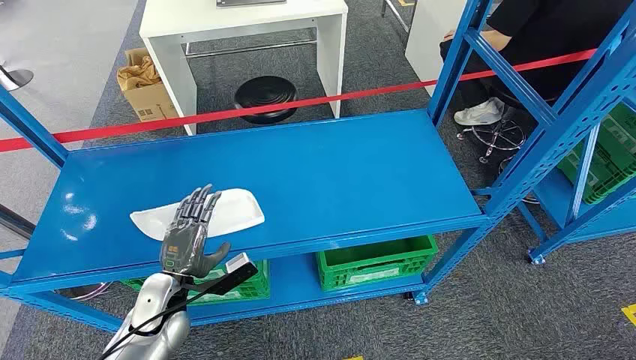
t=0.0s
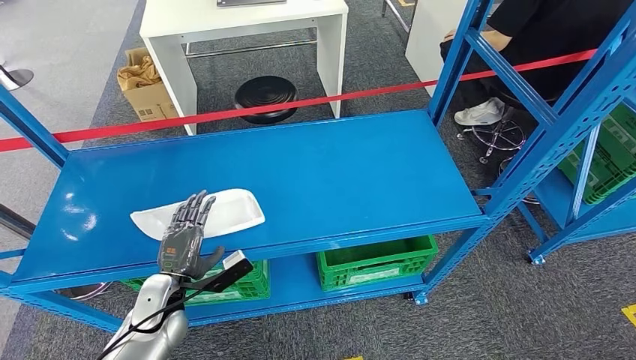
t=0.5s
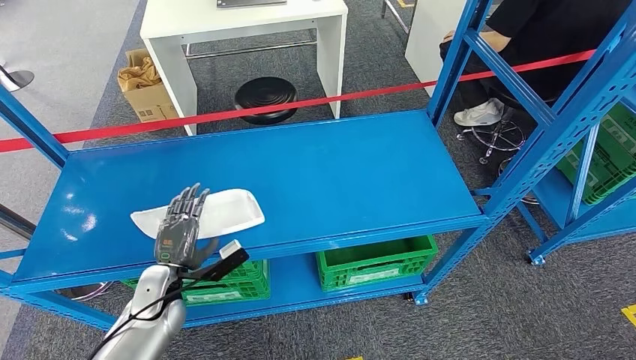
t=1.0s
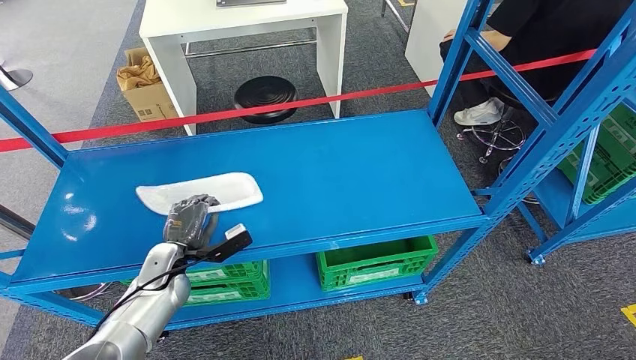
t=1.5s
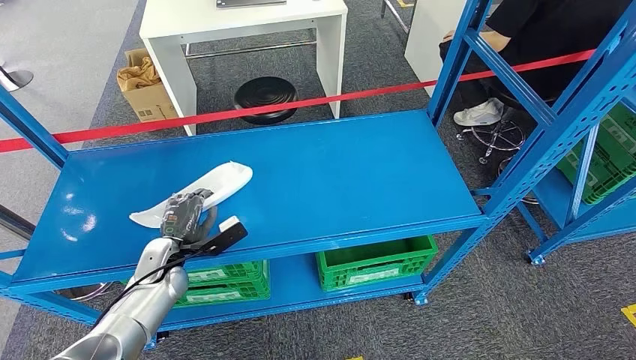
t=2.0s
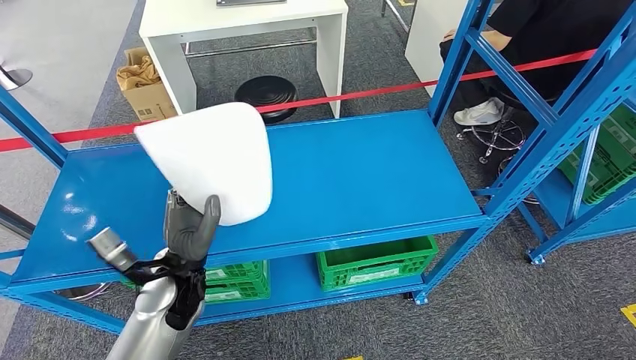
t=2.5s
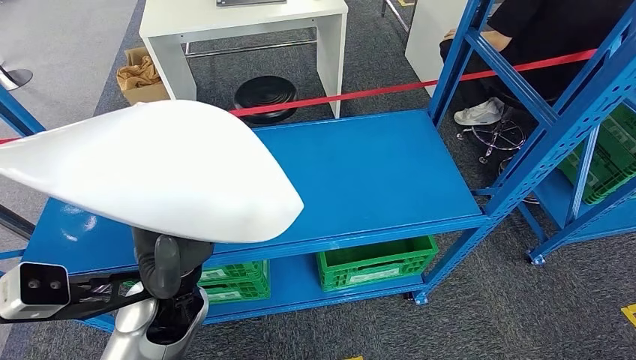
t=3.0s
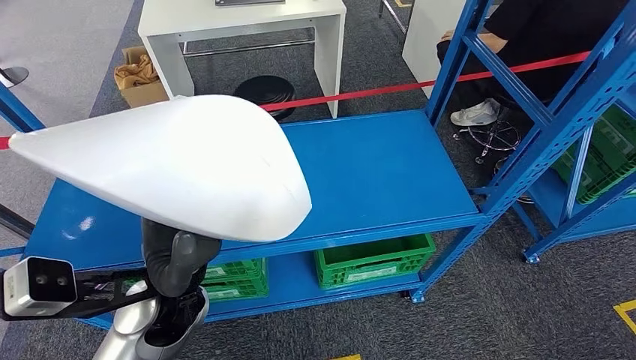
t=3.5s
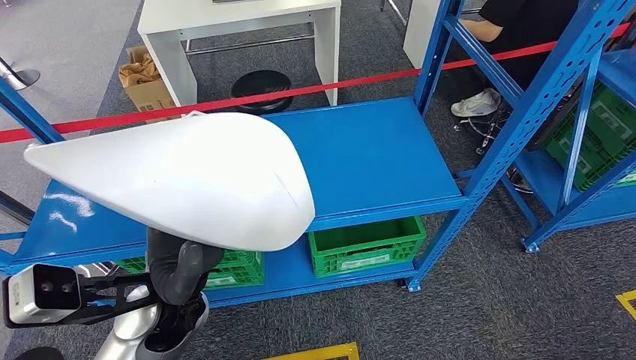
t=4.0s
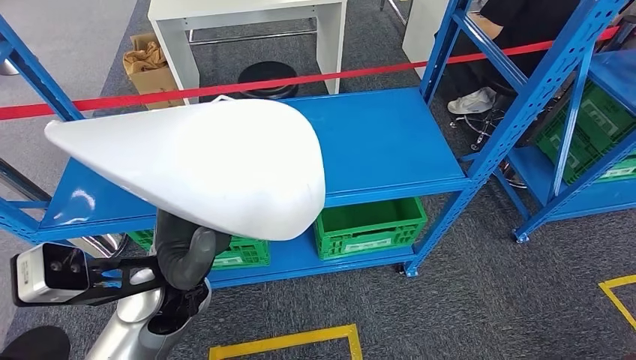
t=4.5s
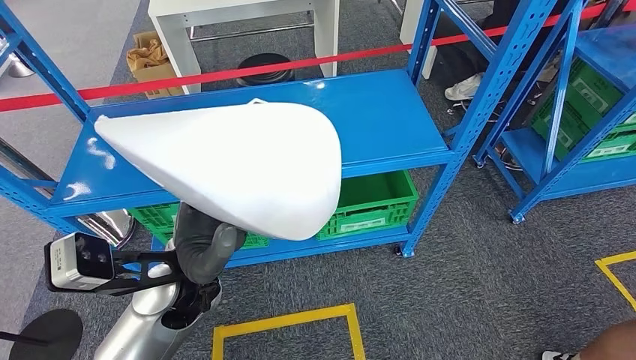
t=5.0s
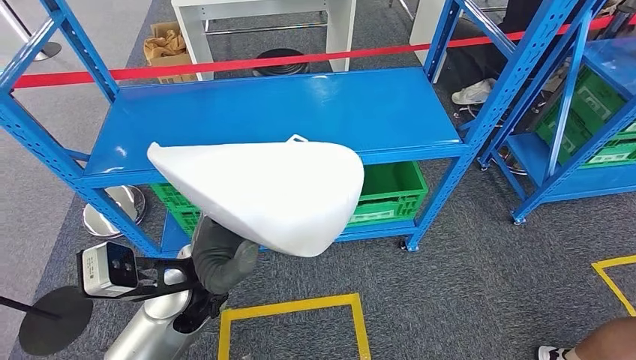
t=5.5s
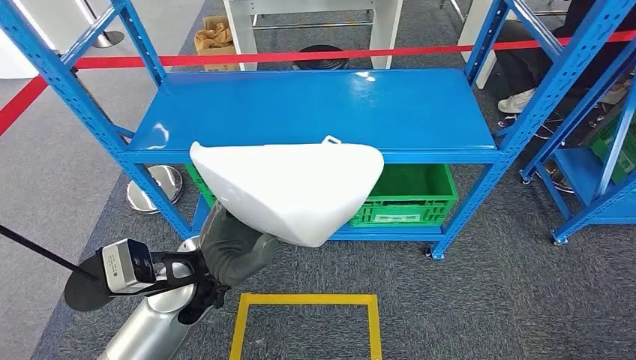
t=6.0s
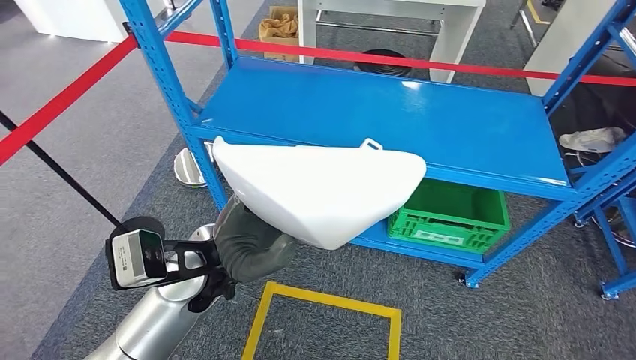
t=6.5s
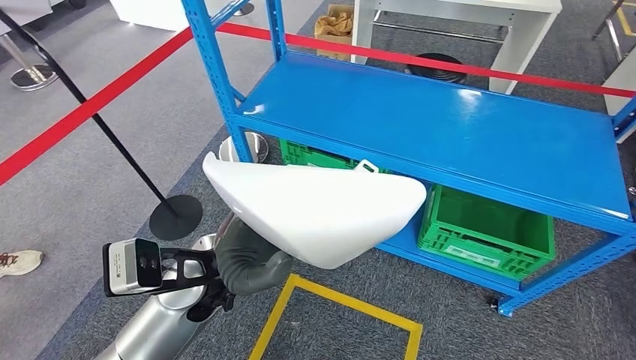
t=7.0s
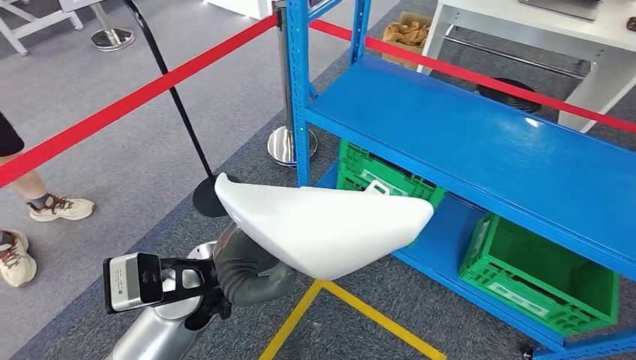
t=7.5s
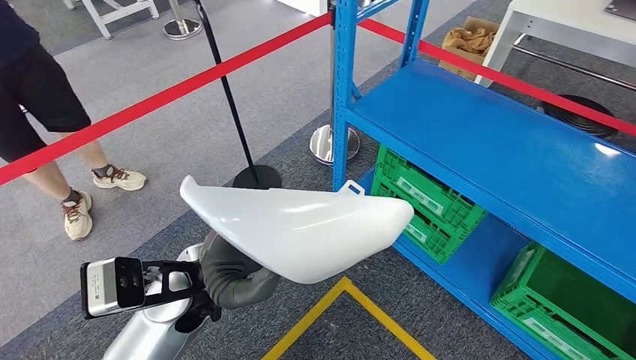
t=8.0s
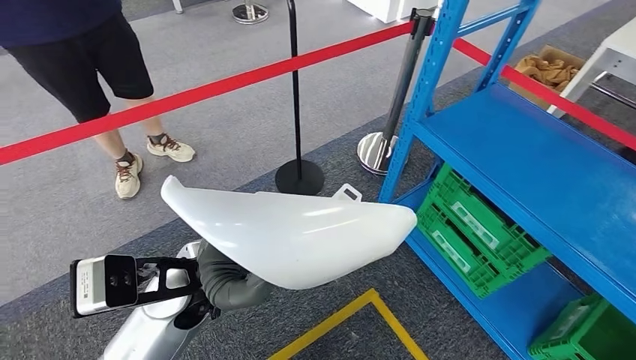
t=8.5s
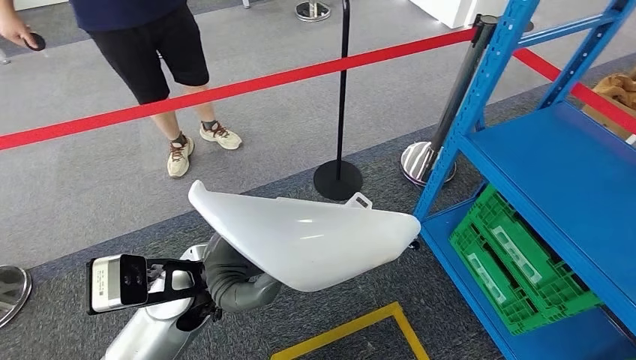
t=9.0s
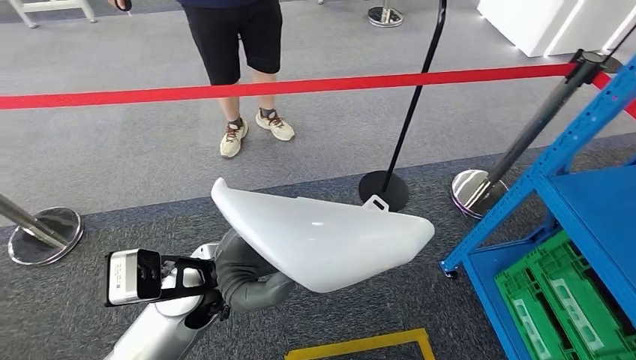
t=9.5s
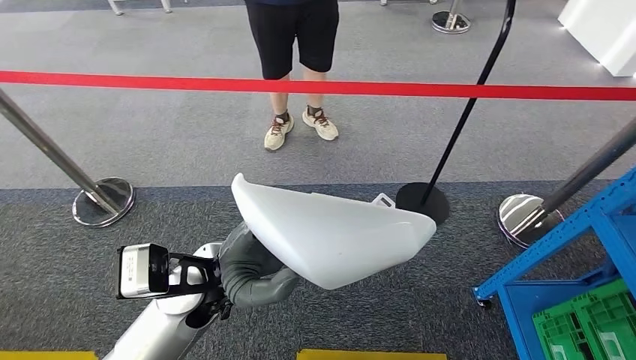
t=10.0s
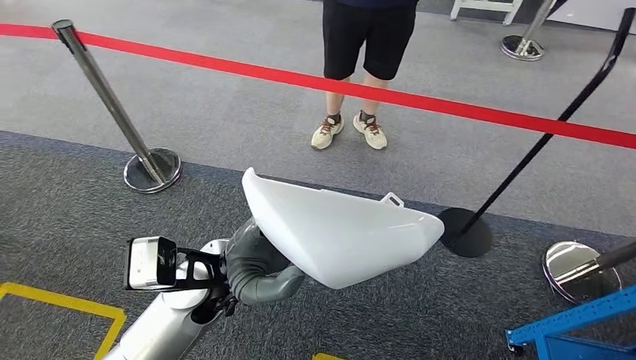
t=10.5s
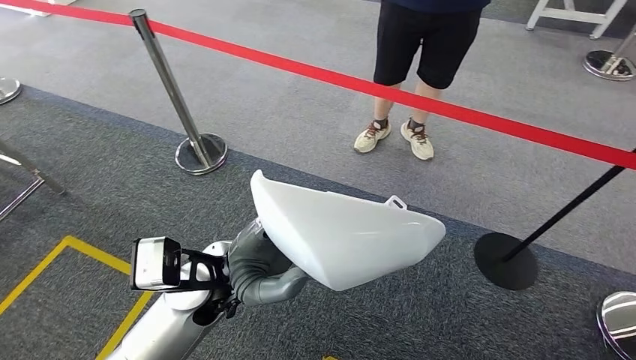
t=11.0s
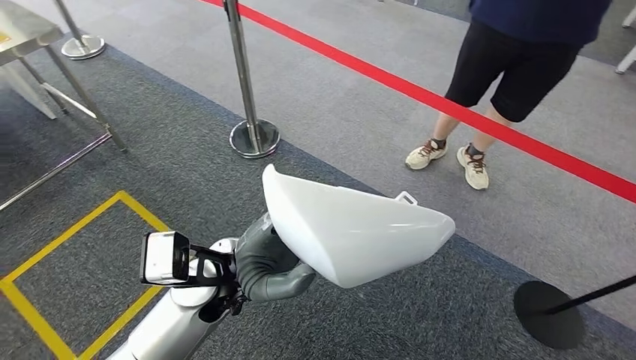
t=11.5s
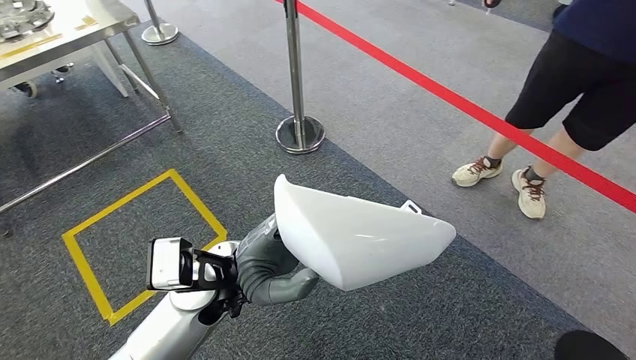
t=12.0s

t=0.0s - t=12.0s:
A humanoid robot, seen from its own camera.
Step, t=0.0s - t=3.0s: Pick up the small component from the shelf.

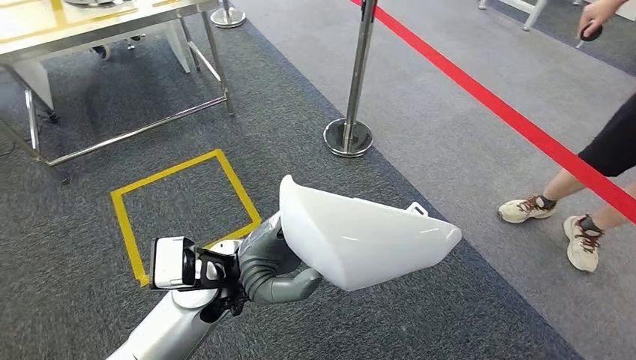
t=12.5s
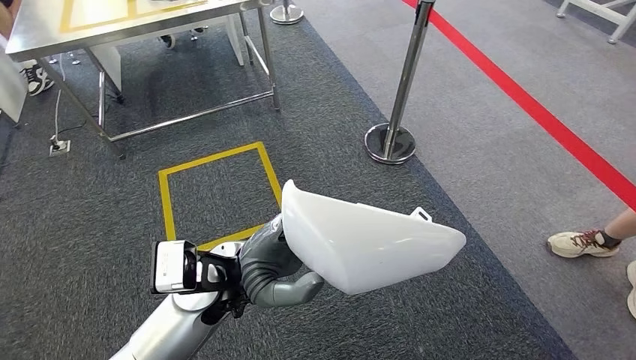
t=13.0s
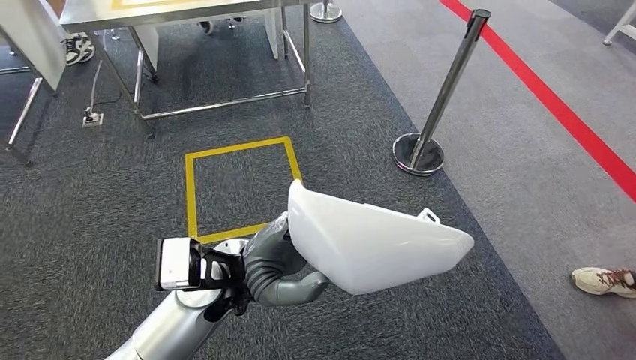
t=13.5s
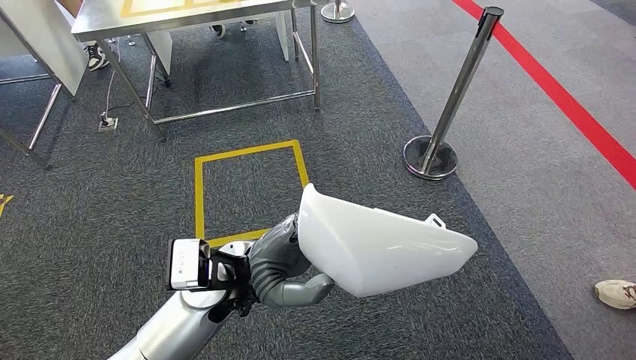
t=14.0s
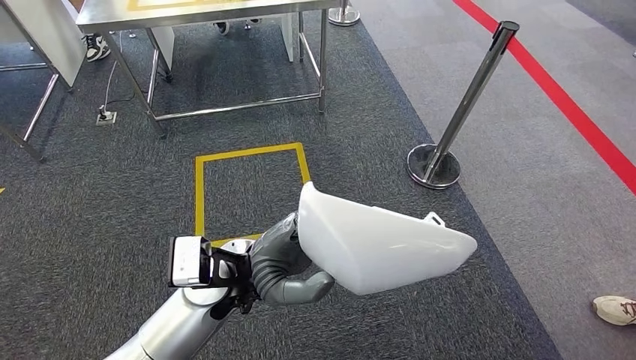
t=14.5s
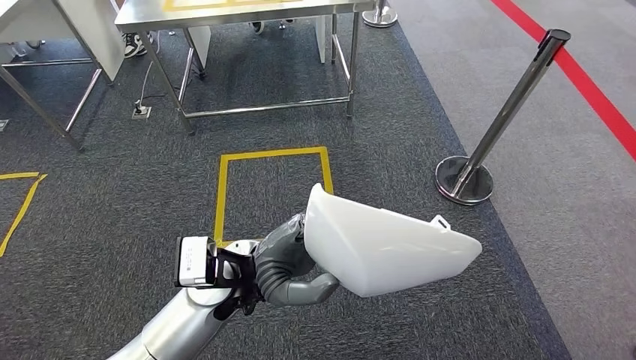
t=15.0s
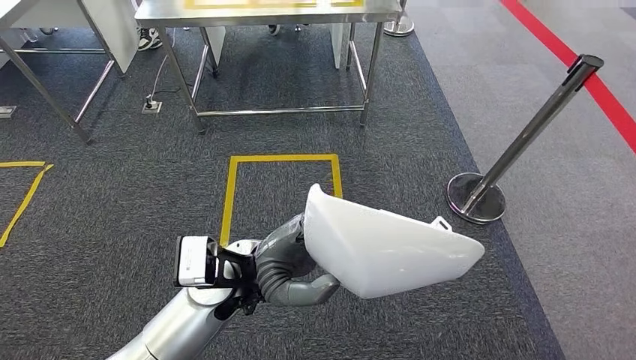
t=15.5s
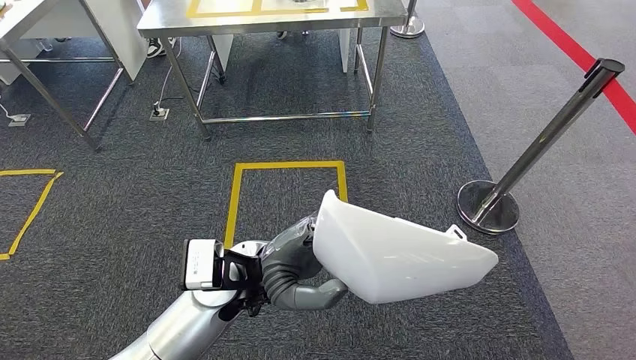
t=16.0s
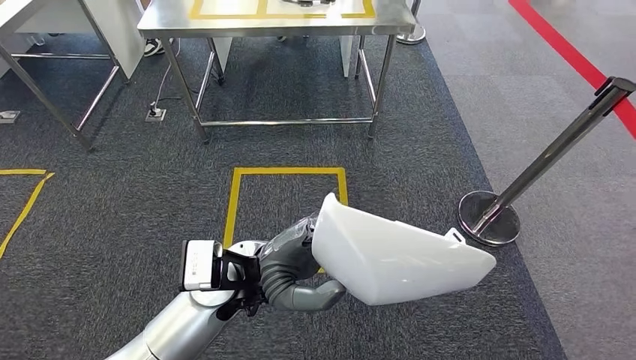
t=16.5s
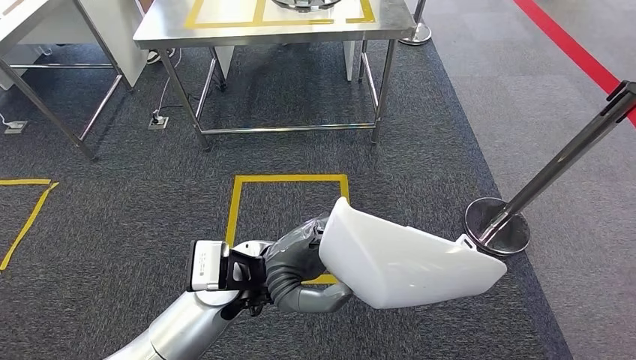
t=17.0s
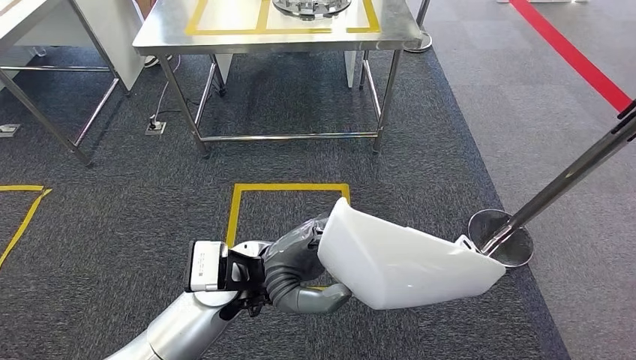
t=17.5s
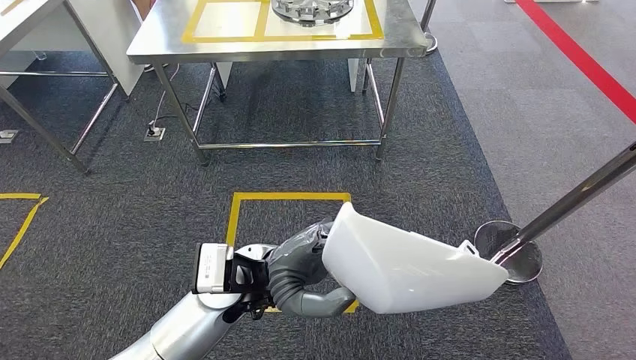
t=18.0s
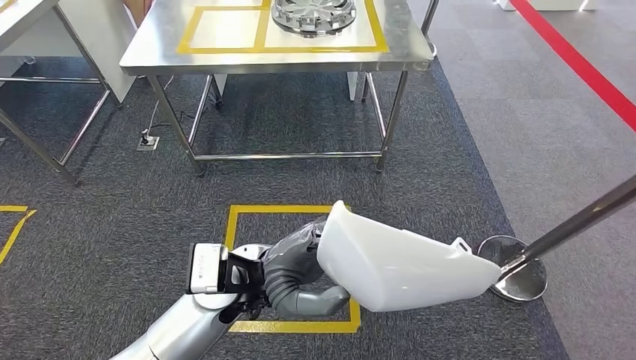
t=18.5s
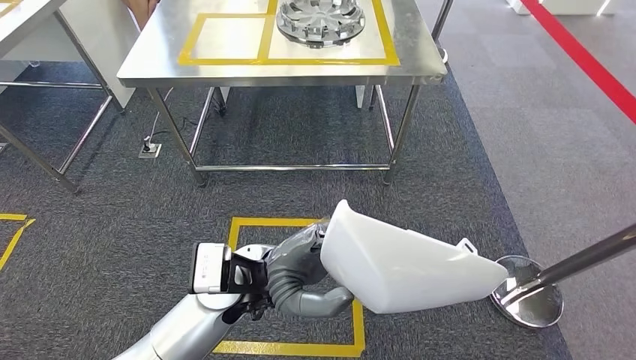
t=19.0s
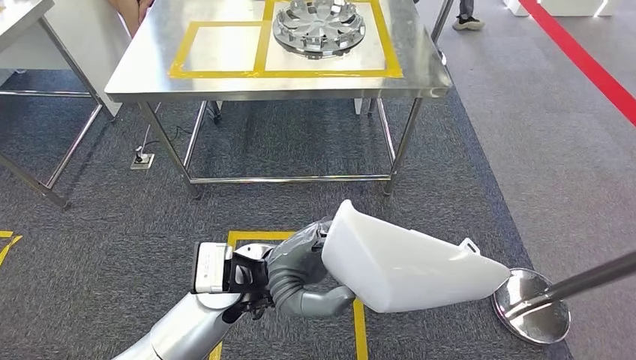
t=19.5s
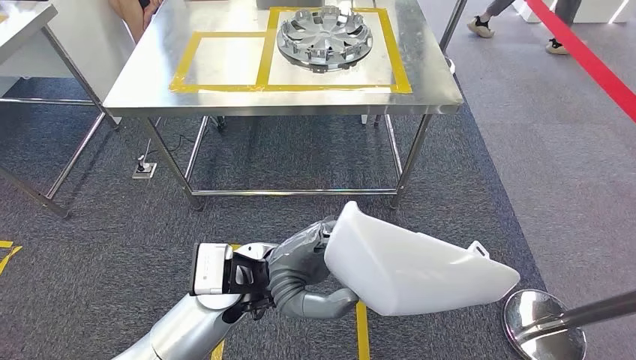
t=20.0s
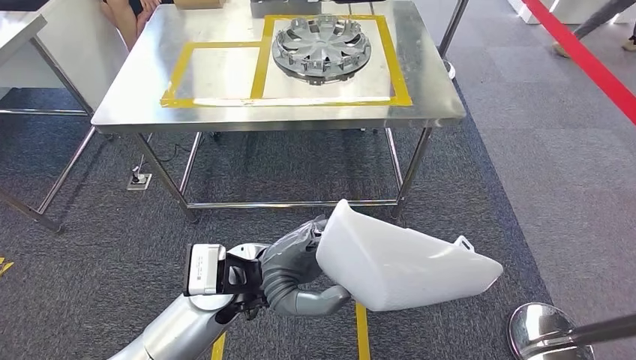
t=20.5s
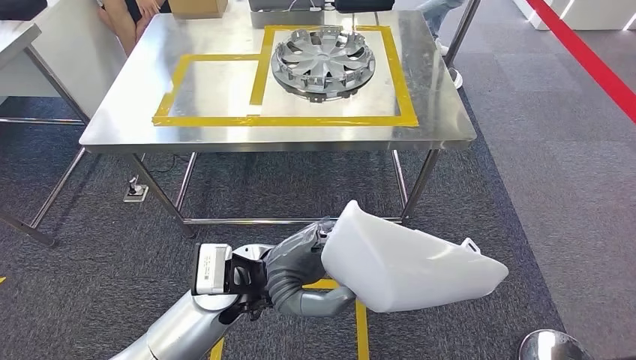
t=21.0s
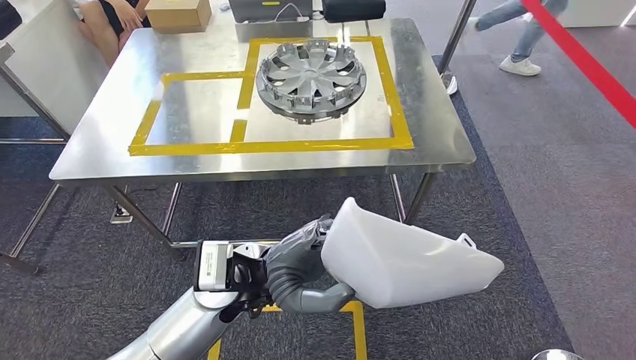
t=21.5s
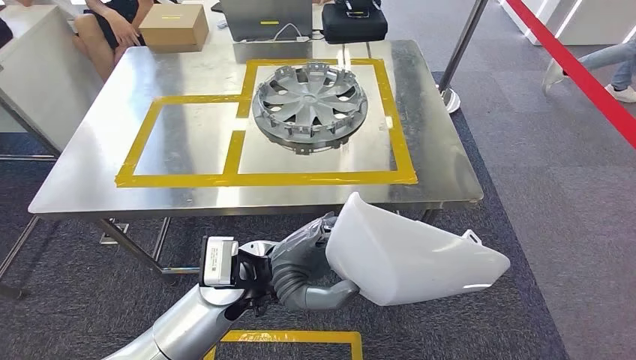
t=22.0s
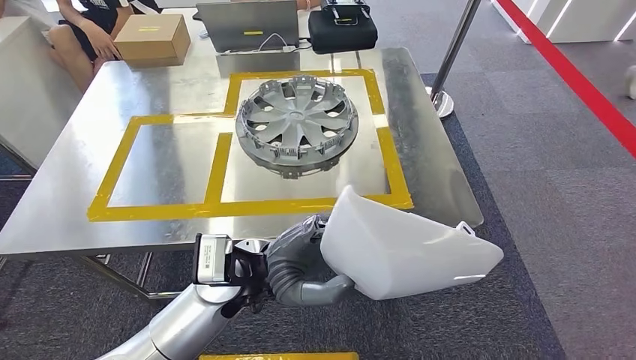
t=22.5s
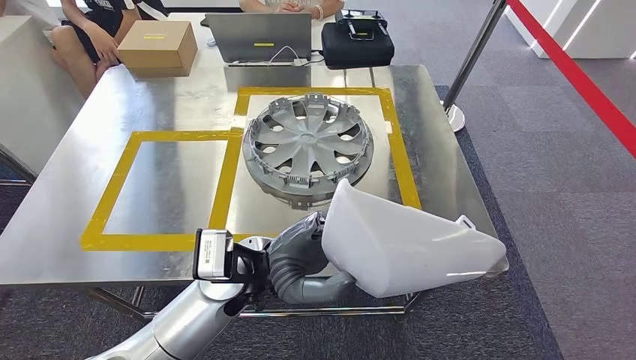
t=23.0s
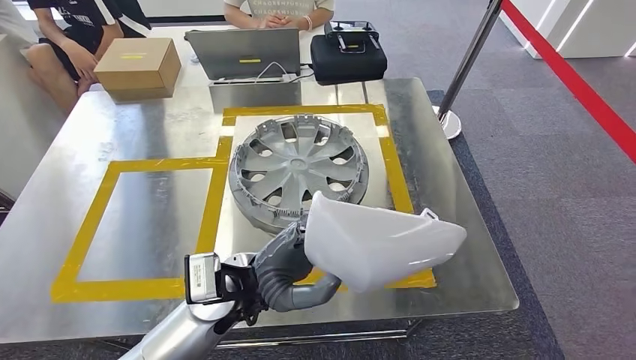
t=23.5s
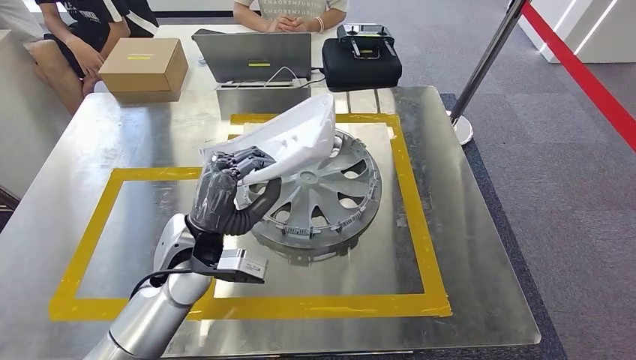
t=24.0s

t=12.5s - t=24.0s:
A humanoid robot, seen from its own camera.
Step, t=12.5s - t=22.5s: Move the small component to the workbench.
